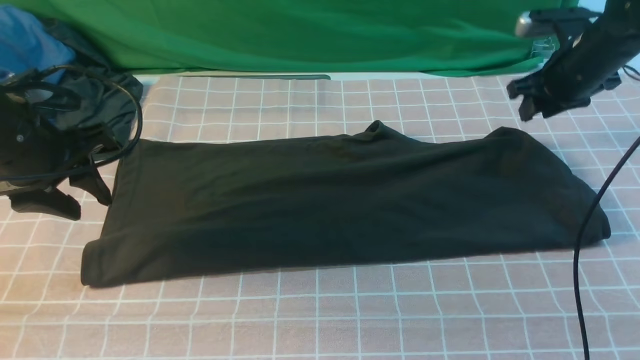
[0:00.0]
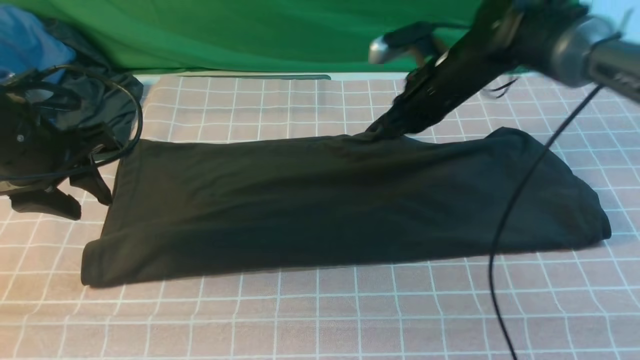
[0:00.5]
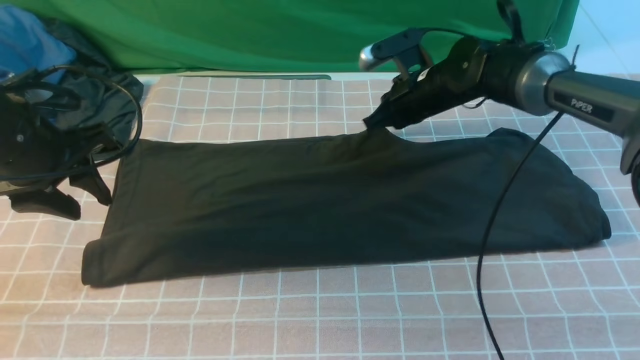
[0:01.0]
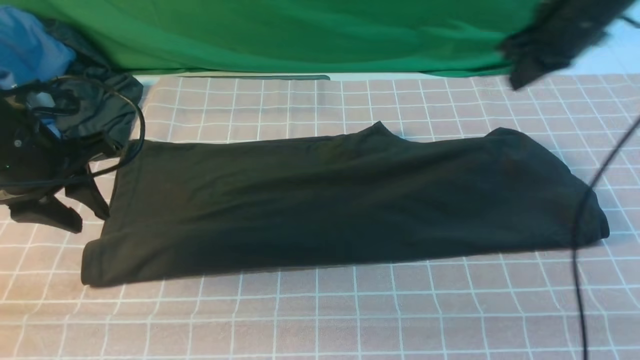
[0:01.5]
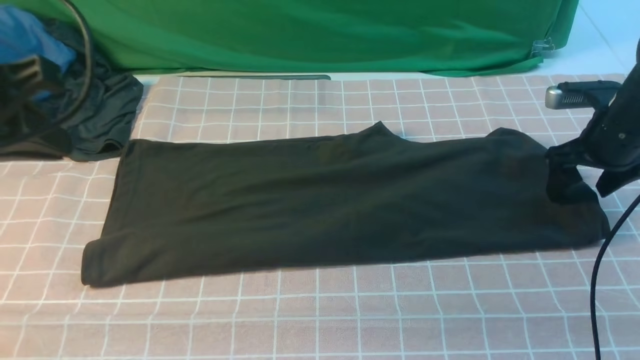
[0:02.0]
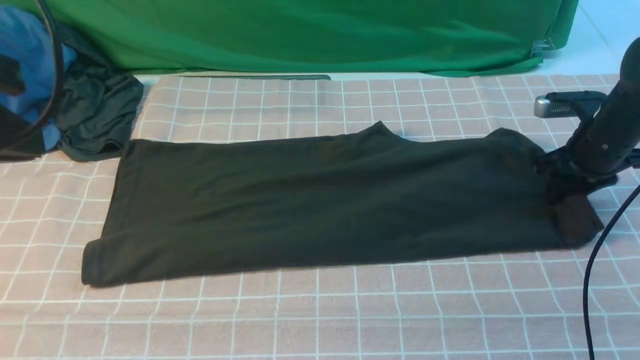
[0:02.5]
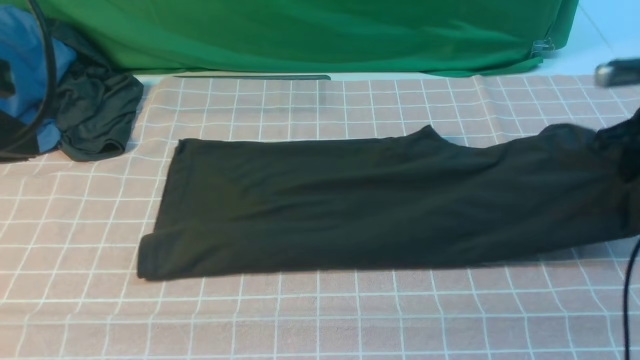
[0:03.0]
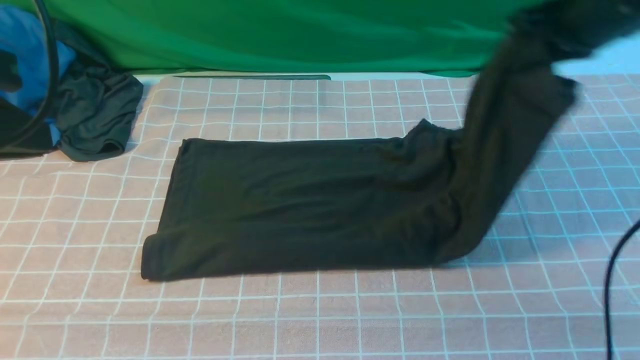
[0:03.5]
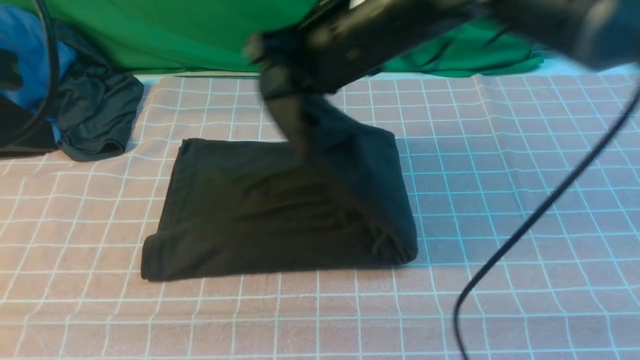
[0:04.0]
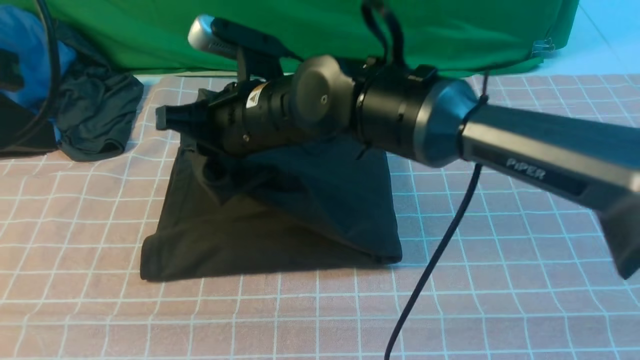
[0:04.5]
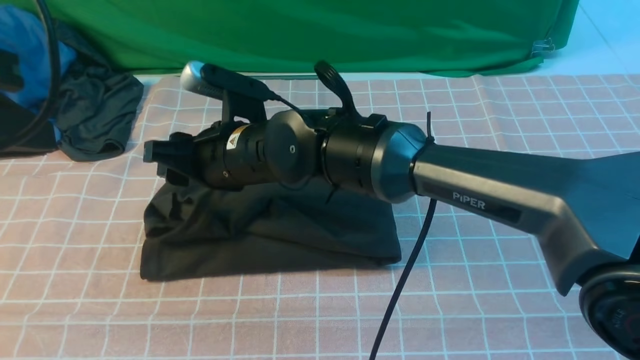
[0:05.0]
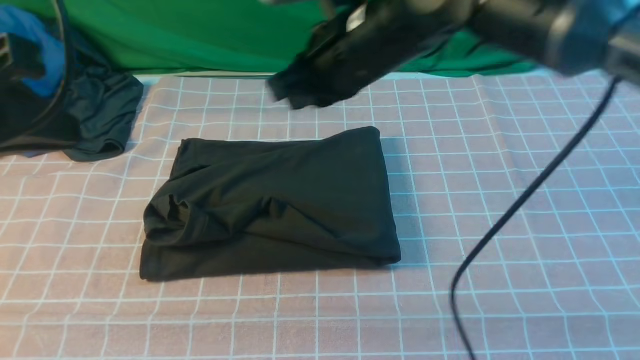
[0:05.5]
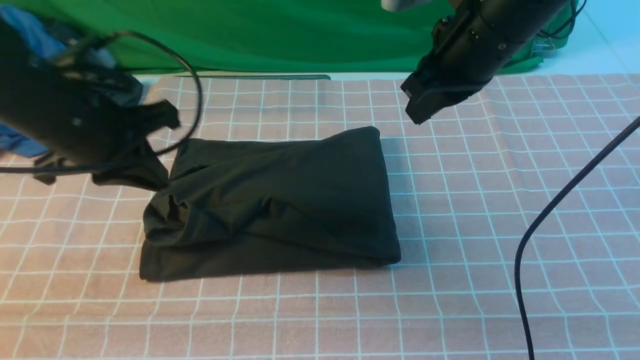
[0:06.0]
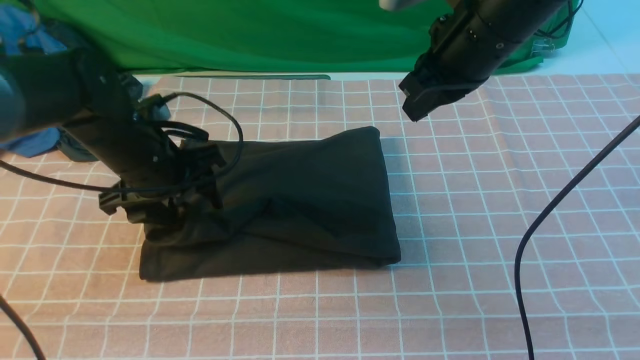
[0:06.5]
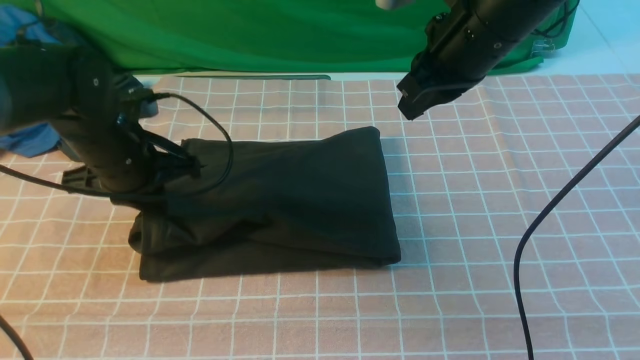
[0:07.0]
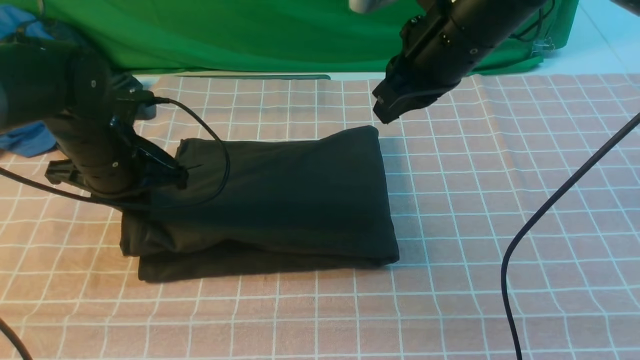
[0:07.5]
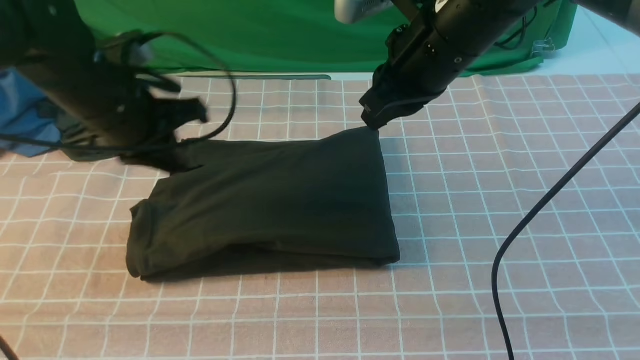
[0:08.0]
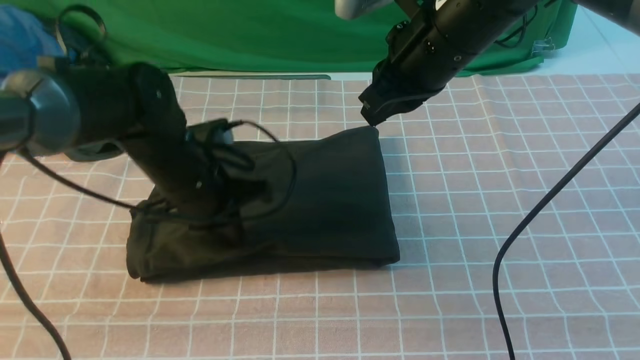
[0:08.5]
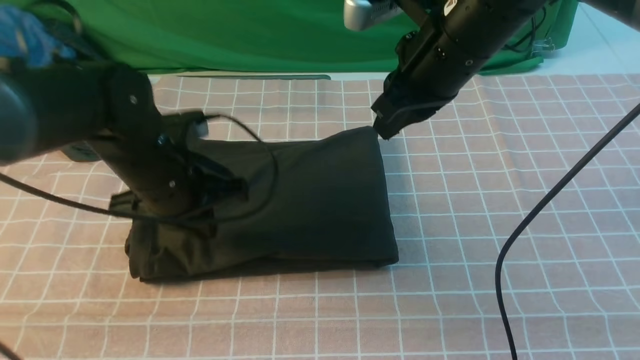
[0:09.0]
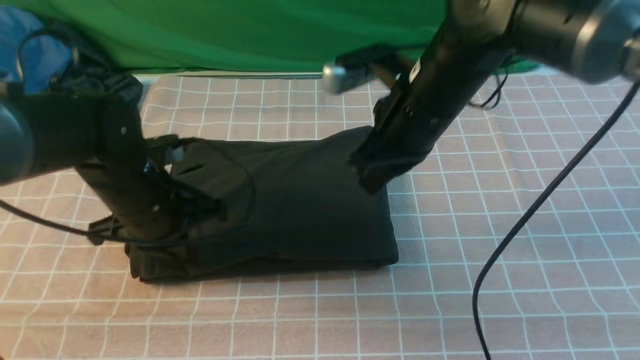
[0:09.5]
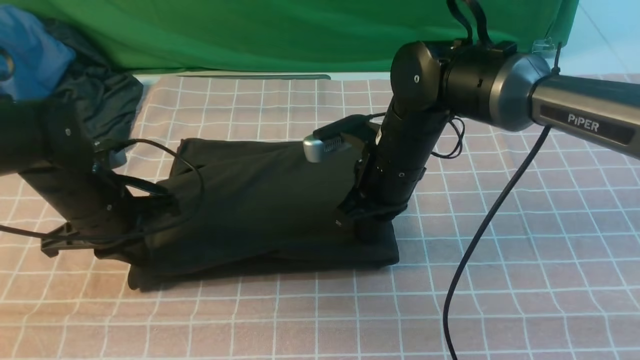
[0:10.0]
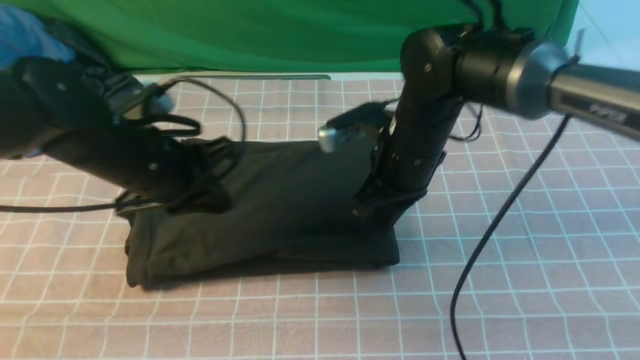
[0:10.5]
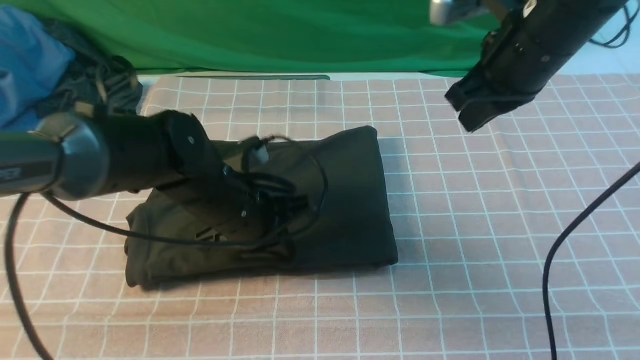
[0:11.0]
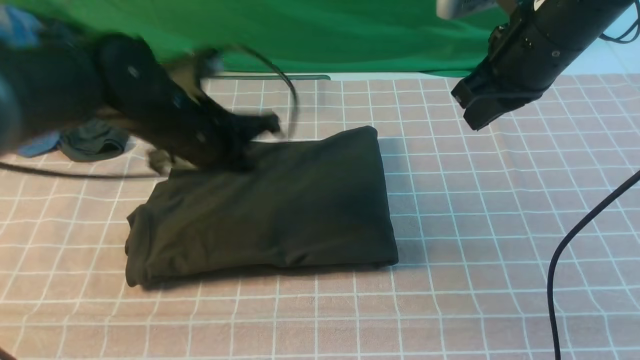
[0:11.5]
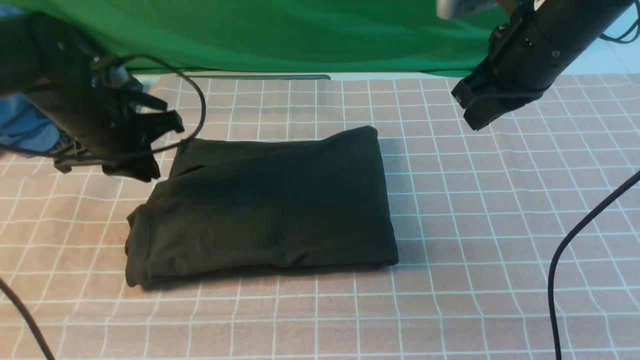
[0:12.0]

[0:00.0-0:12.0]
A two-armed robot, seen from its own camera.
Step, 0:00.0 to 0:02.5: use the right arm to clamp the right edge of the fabric.
Step, 0:03.0 to 0:05.0: use the right arm to drag the right edge of the fabric to the left and folds it over the left edge.
0:00.0 to 0:02.0: The left gripper heads upward and backward, covering some 15 cm, and closes up, while the right gripper is displaced backward by approximately 5 cm, travels to the left and back again, approximately 15 cm each way, and opens up.
0:02.0 to 0:04.0: The left gripper heads backward, covering roughly 5 cm, while the right gripper goes about 35 cm to the left and upward, and closes.
0:04.0 to 0:06.0: The left gripper is displaced forward and downward by approximately 20 cm, while the right gripper is displaced to the right by about 10 cm, and opens, then closes again.
0:06.0 to 0:08.0: The left gripper opens and closes again.
0:08.0 to 0:10.0: The right gripper shifts roughly 15 cm downward; the left gripper is displaced downward by some 10 cm.
0:10.0 to 0:12.0: The left gripper is displaced forward by about 5 cm, and goes to the right and returns, about 15 cm each way; the right gripper goes some 20 cm upward and to the right.

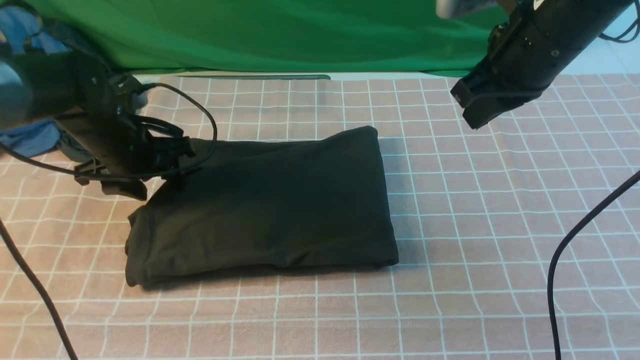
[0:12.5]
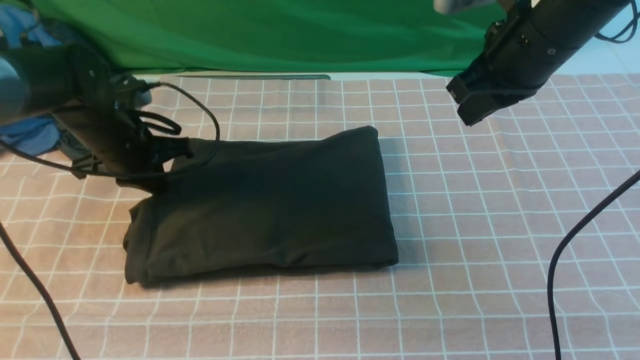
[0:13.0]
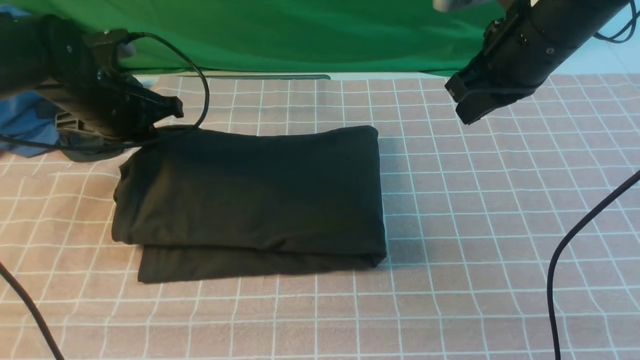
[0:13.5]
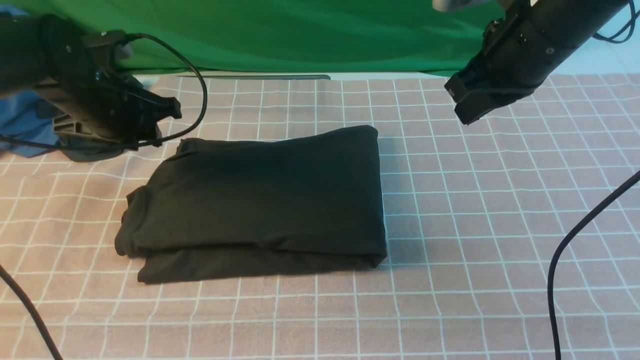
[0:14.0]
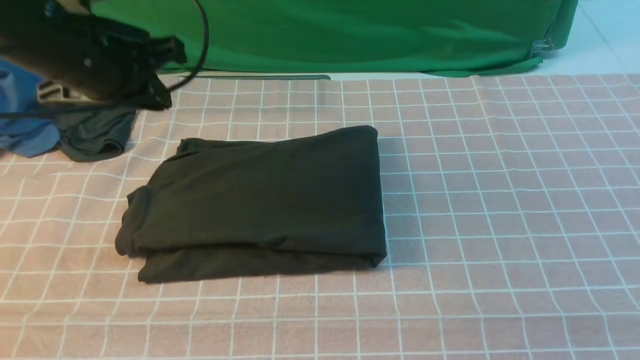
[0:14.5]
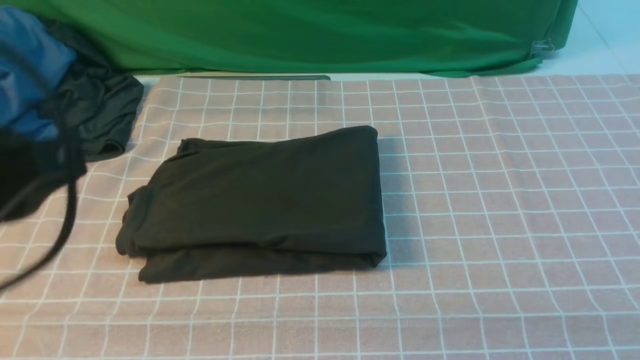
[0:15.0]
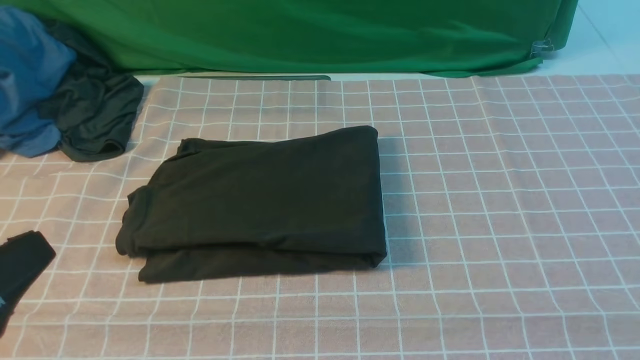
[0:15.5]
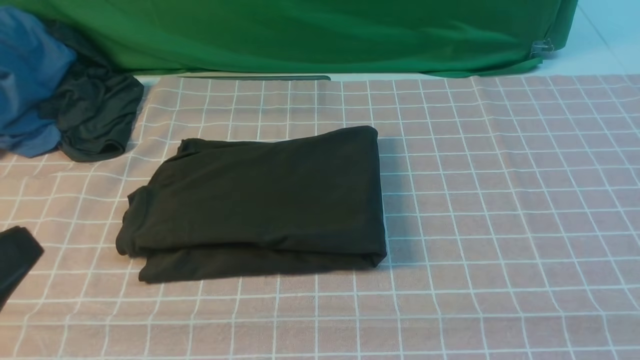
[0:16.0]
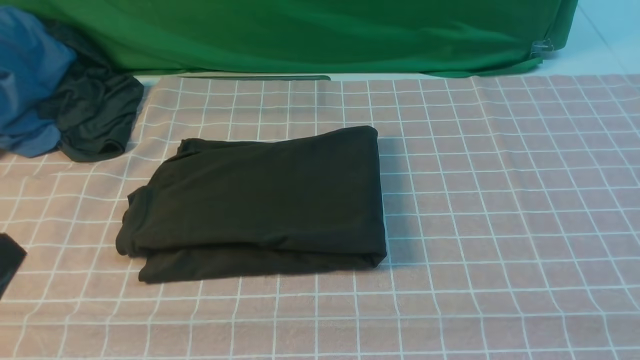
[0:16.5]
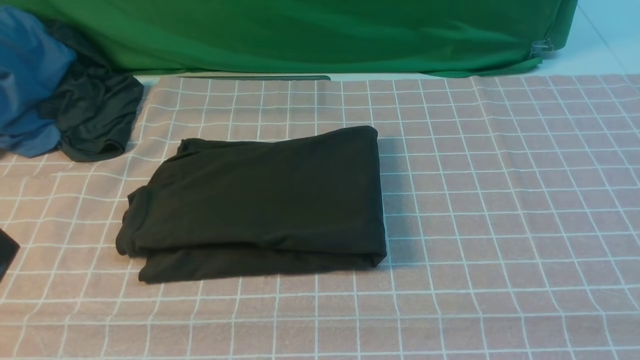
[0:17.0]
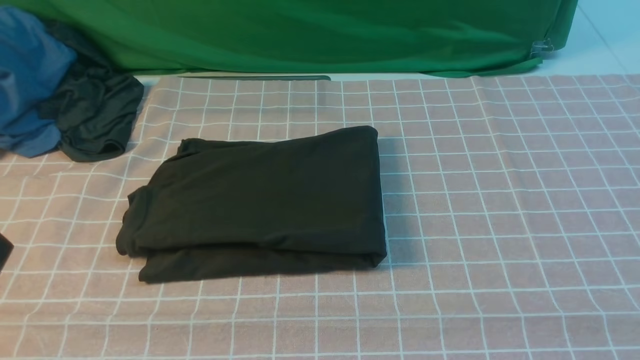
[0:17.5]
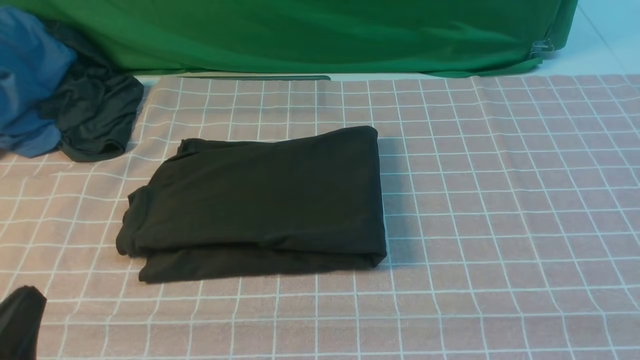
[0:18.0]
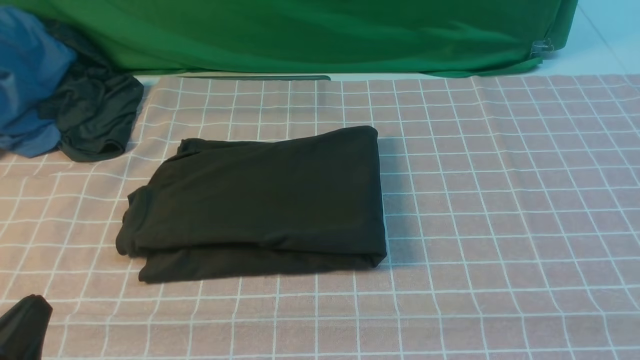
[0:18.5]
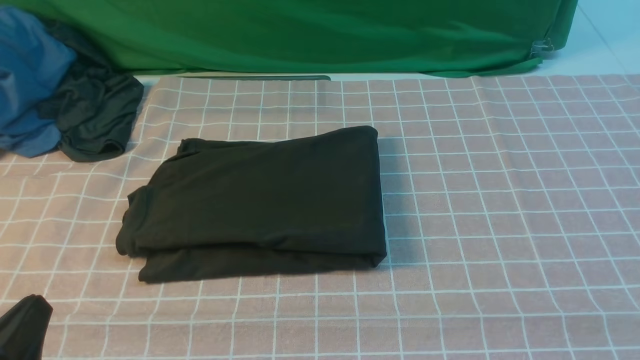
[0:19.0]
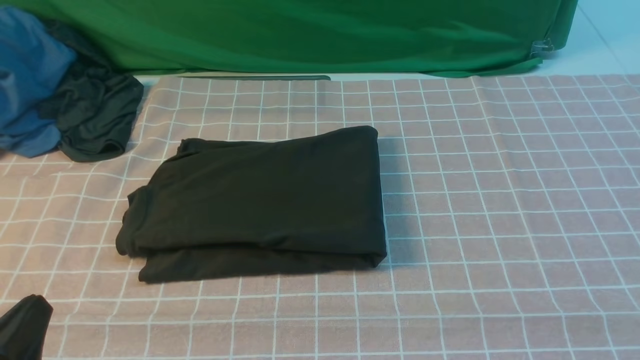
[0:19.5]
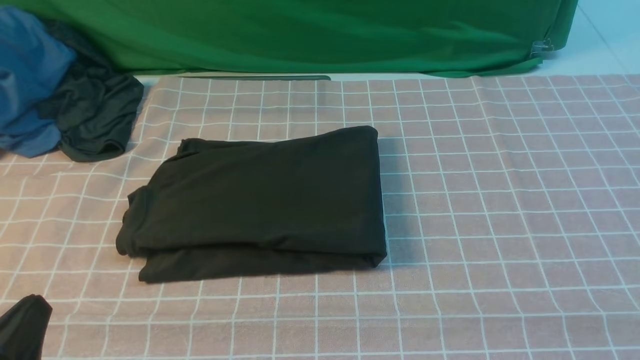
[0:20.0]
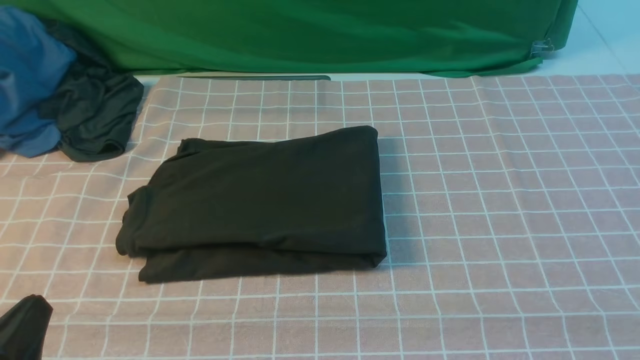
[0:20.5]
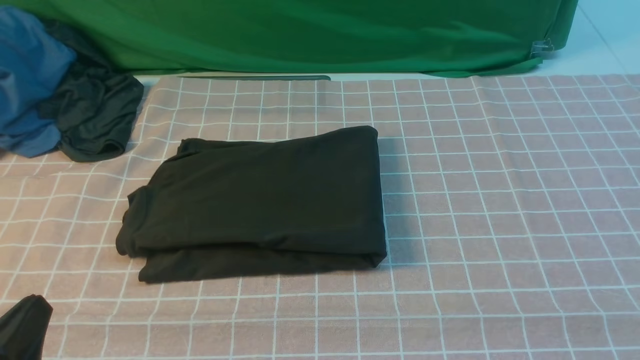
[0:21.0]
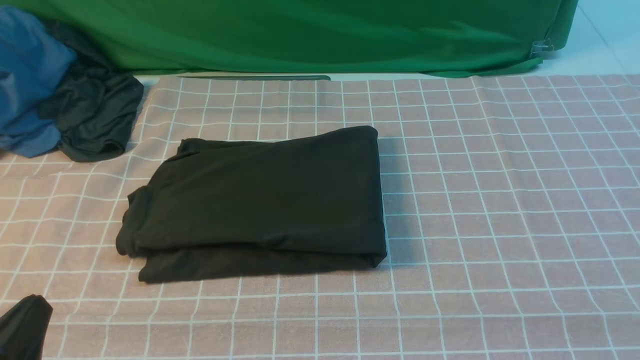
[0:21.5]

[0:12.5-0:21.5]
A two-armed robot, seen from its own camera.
0:12.5 to 0:14.5: The two grippers go approximately 20 cm upward and backward. The left gripper closes its fingers.
0:14.5 to 0:17.0: The left gripper shifts about 25 cm backward.
0:17.0 to 0:19.5: The left gripper is displaced downward by approximately 10 cm.
